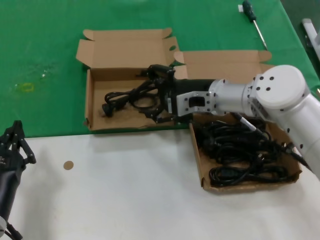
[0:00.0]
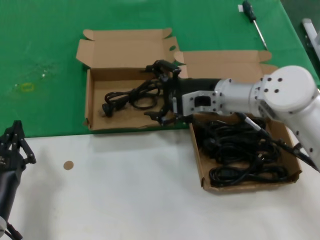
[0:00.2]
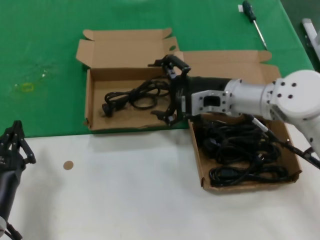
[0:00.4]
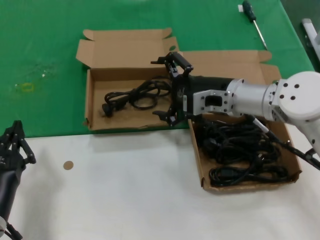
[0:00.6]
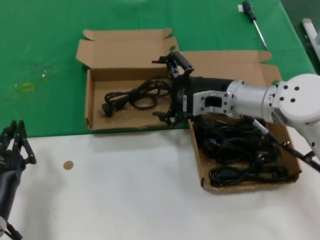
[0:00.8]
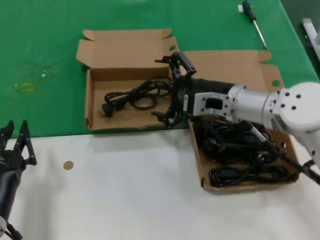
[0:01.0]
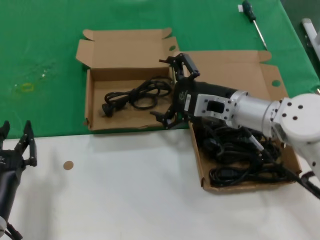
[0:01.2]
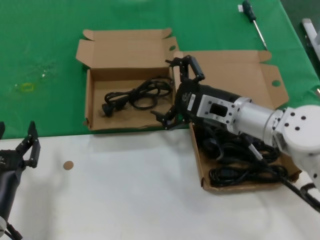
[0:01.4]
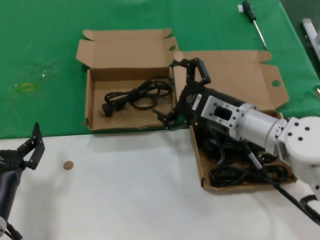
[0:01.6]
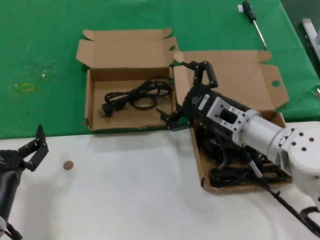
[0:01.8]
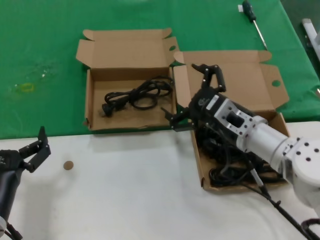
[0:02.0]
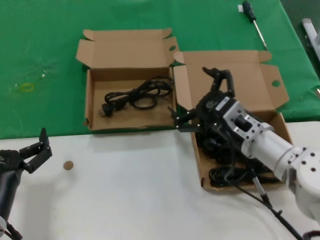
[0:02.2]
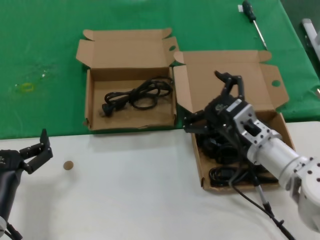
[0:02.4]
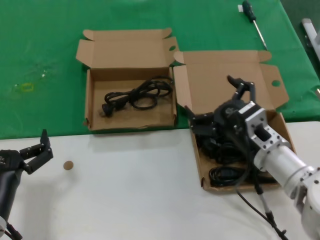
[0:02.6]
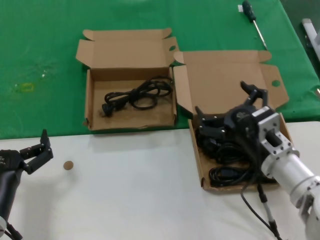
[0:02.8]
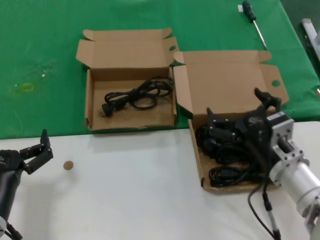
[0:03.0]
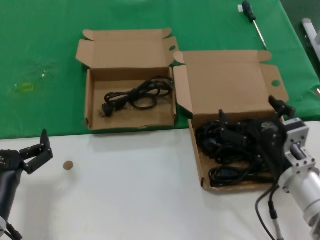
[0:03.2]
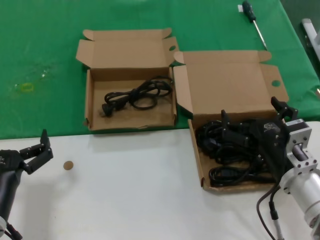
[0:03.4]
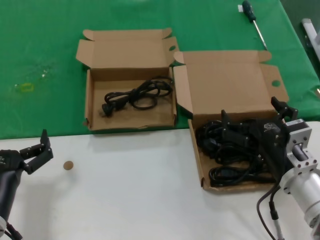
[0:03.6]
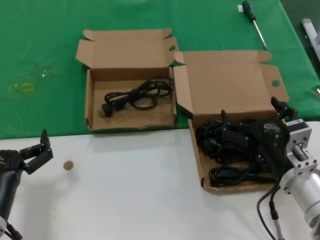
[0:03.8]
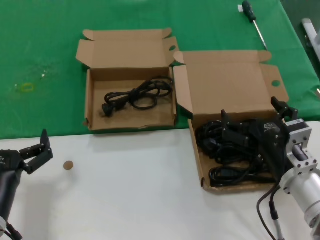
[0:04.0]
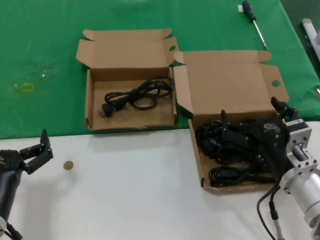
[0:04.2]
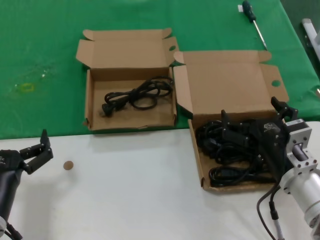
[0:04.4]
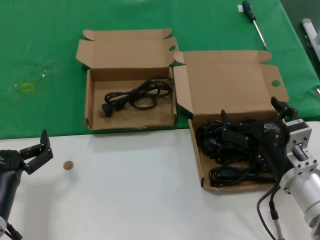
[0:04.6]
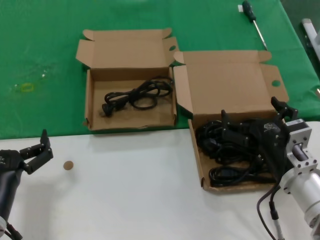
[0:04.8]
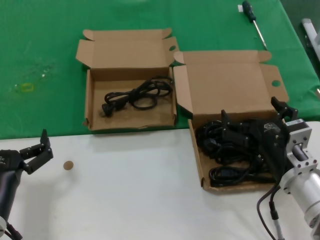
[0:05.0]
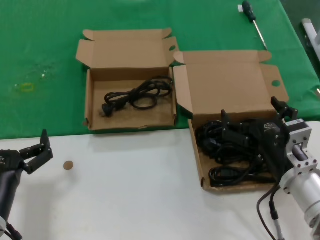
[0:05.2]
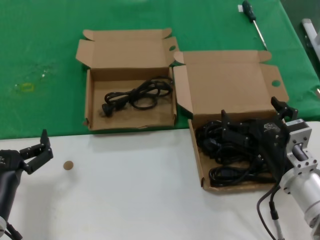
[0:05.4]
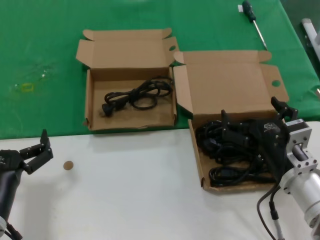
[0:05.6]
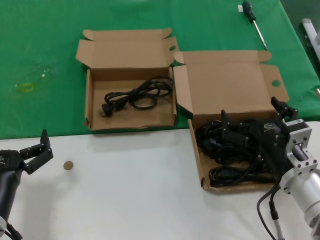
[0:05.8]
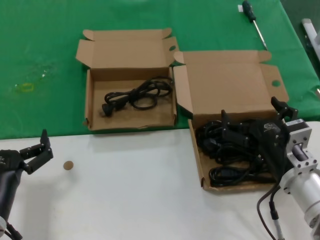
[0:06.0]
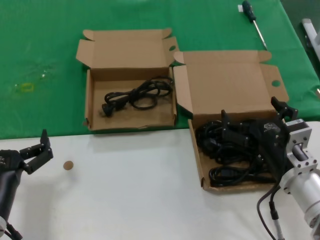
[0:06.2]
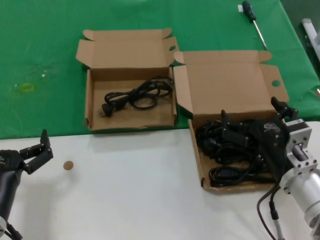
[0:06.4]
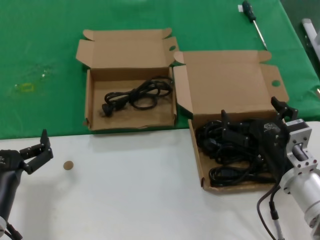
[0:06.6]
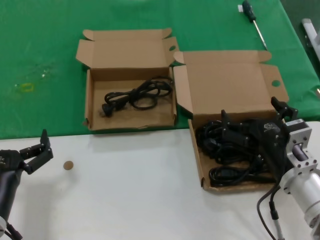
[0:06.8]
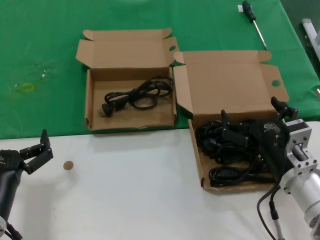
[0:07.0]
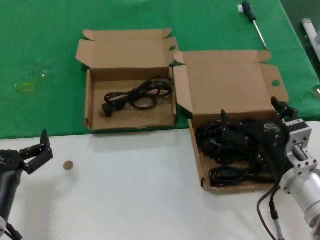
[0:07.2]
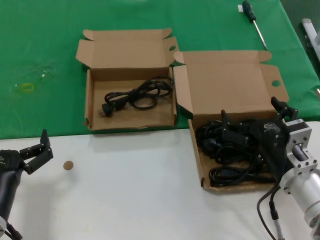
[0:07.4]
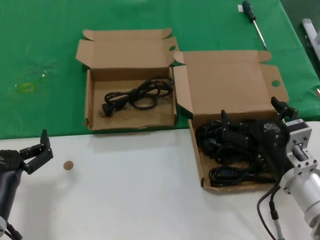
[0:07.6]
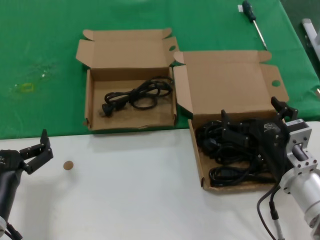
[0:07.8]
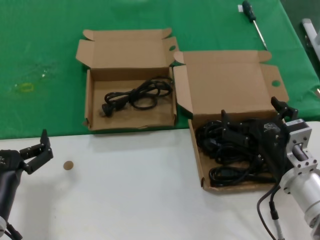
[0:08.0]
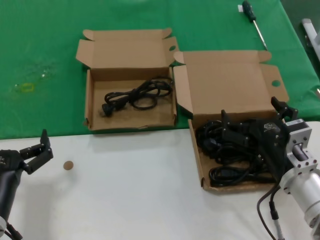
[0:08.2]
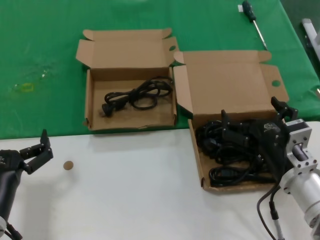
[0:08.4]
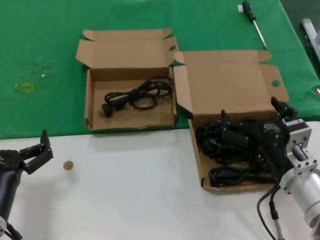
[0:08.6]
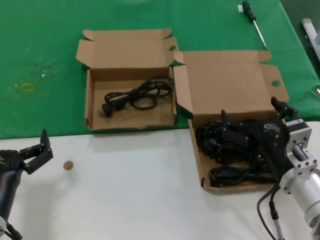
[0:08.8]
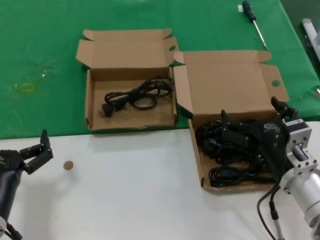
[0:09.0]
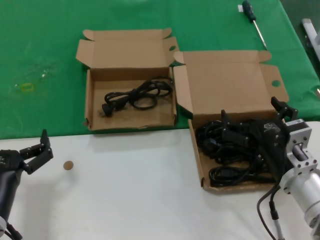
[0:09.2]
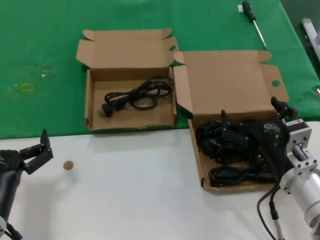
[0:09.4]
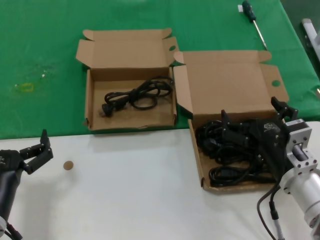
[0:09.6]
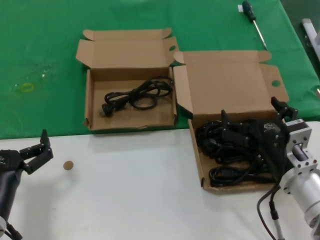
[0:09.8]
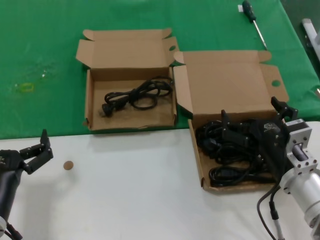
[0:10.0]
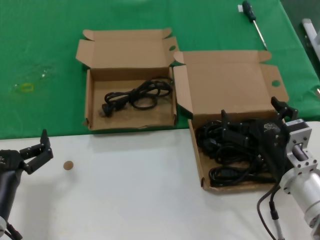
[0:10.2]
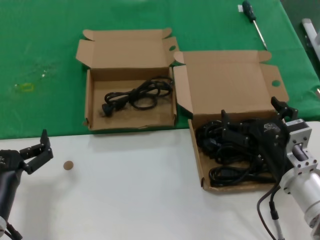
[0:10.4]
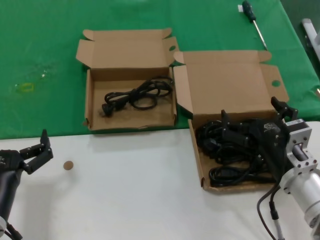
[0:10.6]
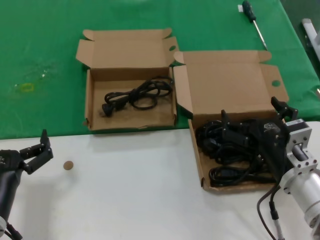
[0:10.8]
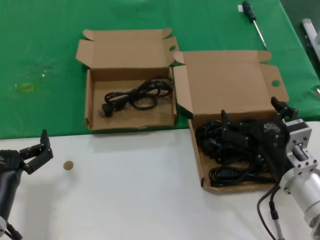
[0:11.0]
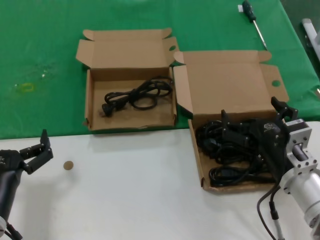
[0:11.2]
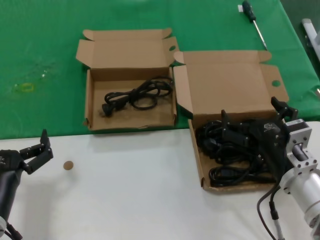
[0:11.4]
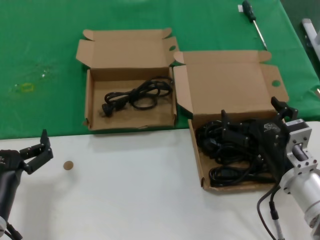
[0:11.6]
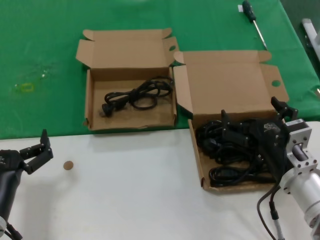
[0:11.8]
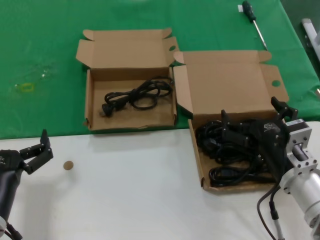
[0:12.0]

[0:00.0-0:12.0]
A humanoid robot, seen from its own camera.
Task of the whole recording: take the parts from the box containing them and put them into an empty box.
0:00.0 to 0:01.6: The right hand travels backward by approximately 5 cm.
0:01.6 to 0:03.0: The right hand heads backward and downward, covering some 10 cm.
0:03.0 to 0:04.4: The hands move only a little.
0:04.4 to 0:12.0: Both hands stay about where they are.

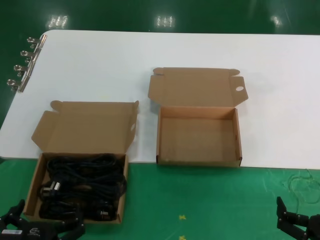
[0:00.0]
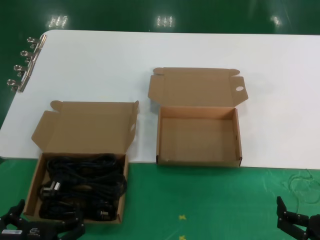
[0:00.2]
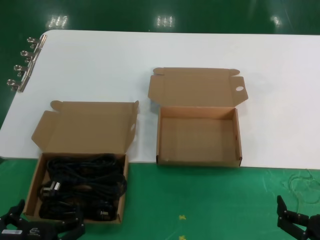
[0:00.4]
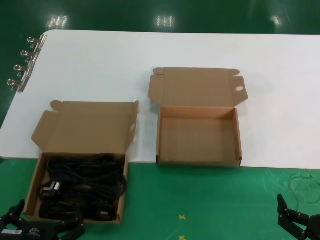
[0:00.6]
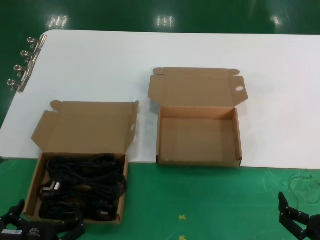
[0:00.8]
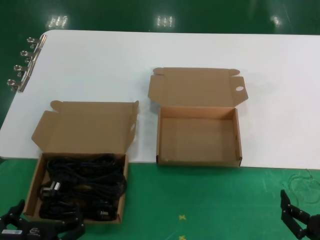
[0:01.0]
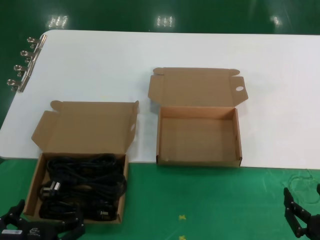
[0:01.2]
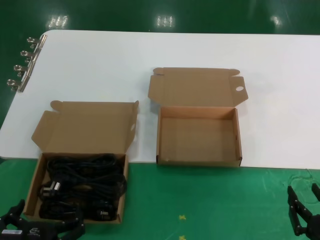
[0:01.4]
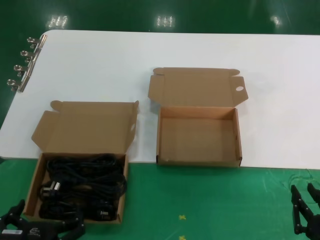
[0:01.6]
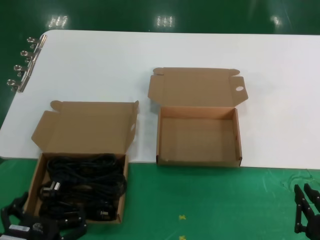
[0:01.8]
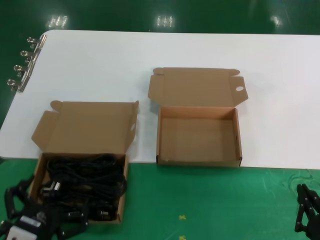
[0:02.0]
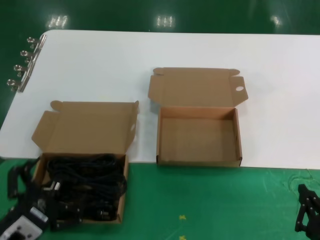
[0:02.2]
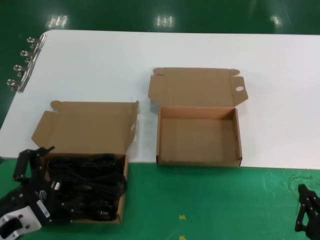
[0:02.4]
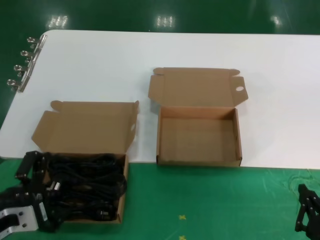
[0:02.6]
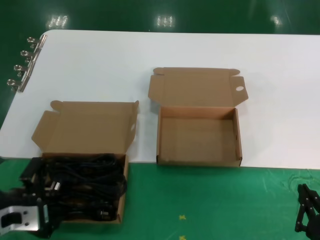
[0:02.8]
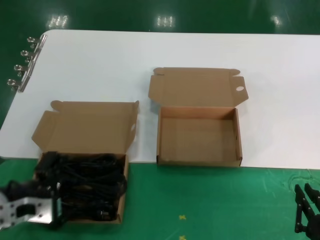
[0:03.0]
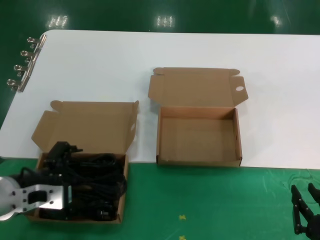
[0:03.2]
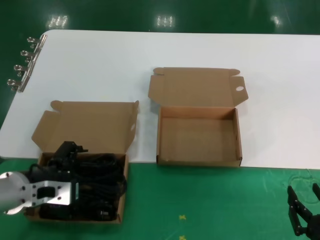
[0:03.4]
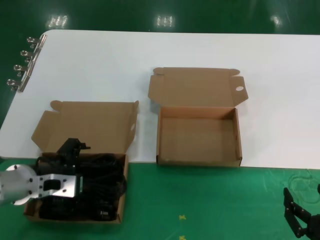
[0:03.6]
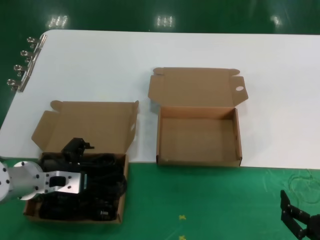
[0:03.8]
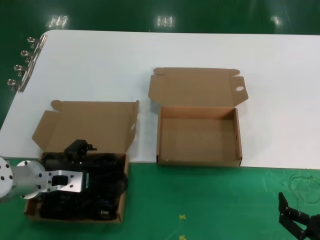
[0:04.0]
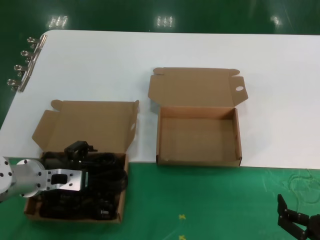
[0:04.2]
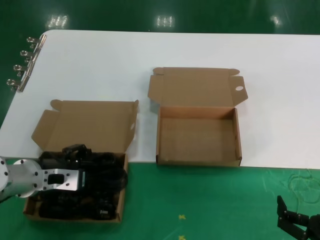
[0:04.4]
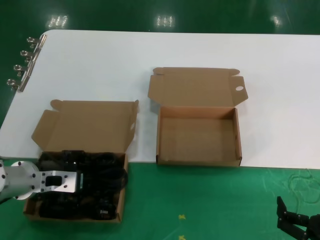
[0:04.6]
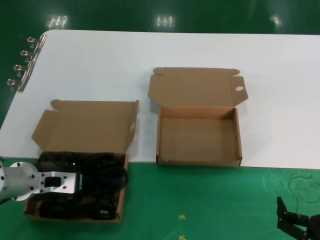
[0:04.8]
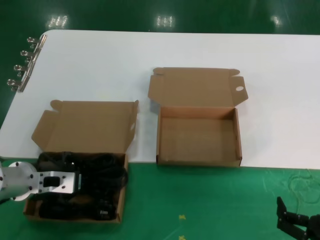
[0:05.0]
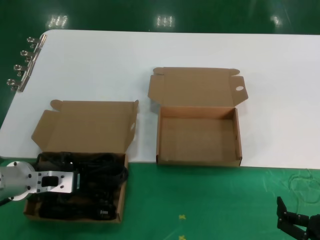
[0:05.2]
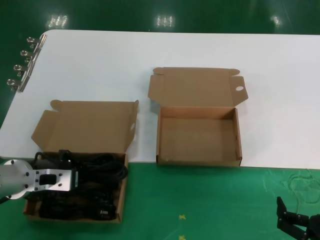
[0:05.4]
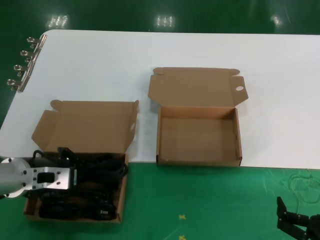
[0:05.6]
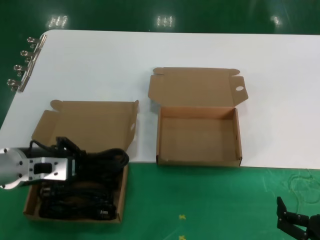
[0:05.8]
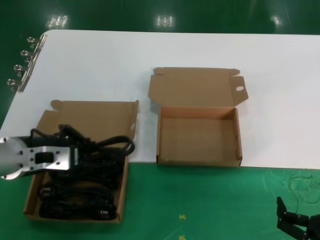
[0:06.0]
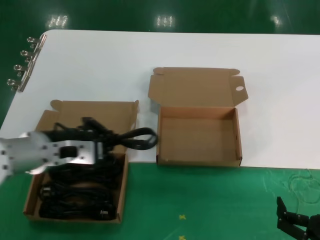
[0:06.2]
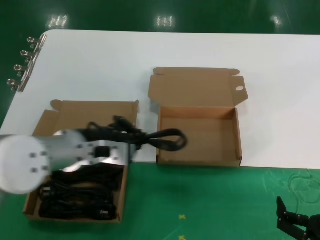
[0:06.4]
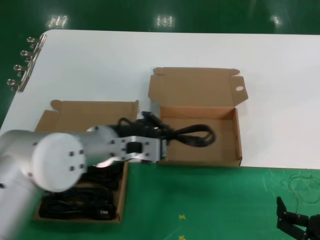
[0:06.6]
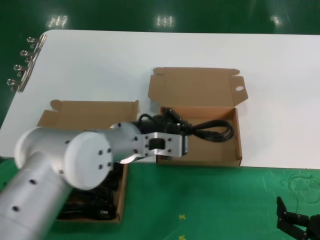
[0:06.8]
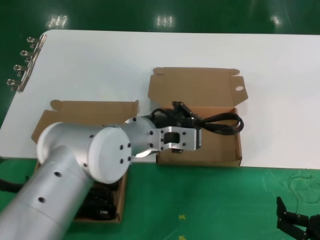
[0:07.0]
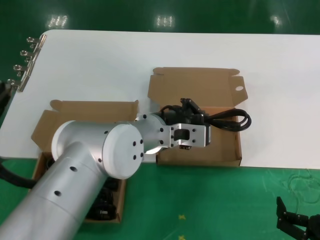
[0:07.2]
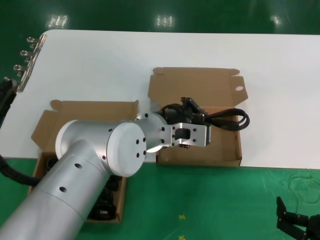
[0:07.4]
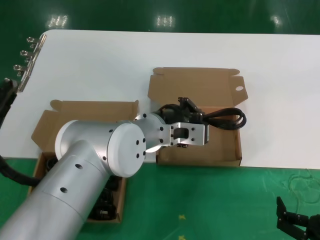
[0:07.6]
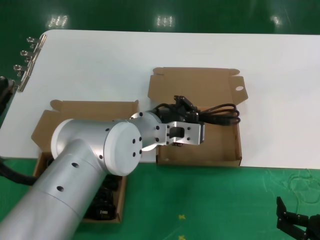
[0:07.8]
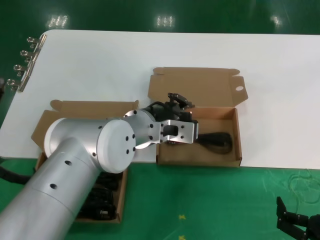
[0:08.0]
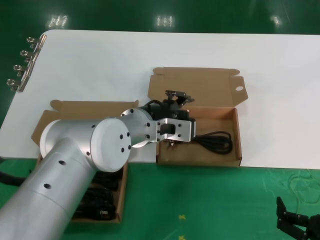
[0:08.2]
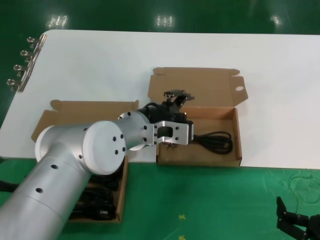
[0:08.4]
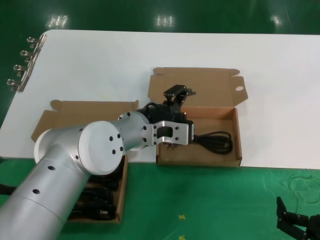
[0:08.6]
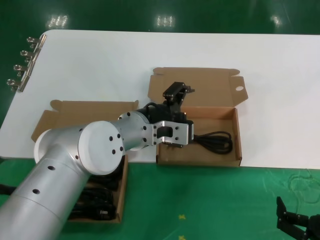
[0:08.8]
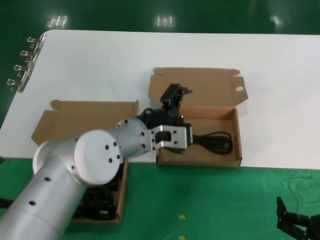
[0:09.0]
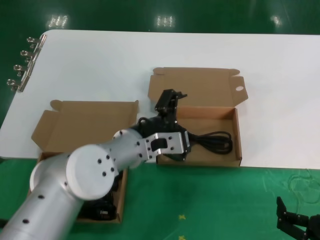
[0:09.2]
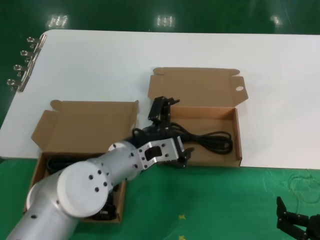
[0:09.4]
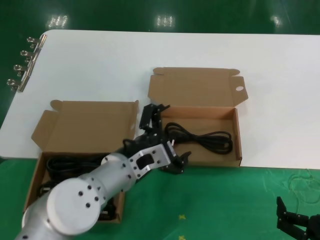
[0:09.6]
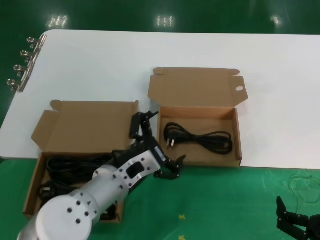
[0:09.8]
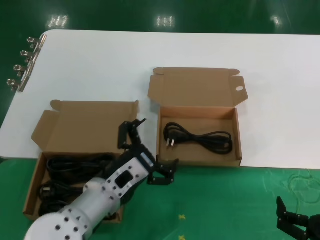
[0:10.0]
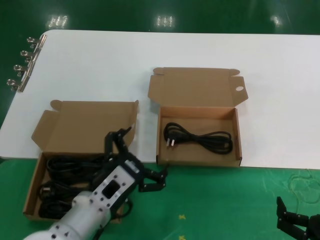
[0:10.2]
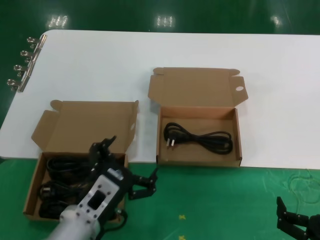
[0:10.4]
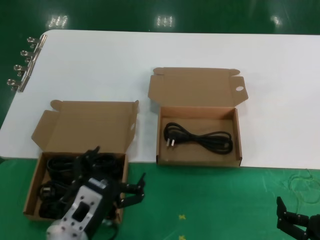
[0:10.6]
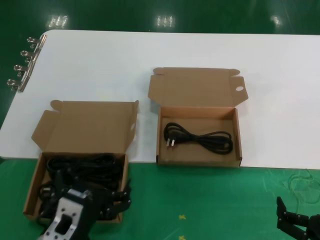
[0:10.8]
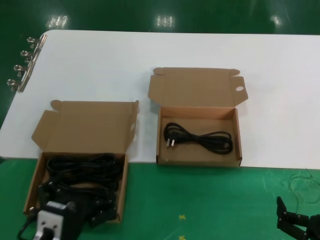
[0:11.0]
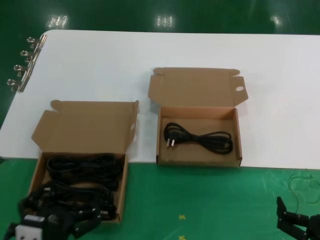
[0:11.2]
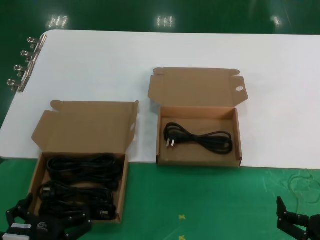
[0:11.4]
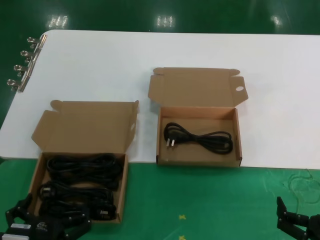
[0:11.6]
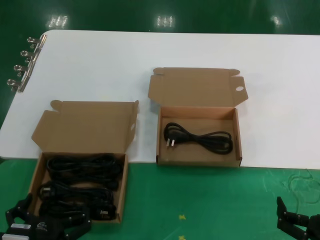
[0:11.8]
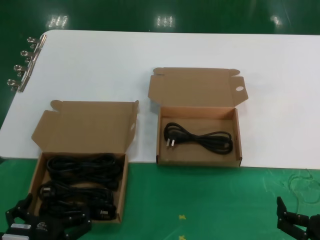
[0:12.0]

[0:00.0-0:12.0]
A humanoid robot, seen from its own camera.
Task of the whole recording: take the parts from the box containing them and put them into an empty box.
Step, 0:00.0 to 0:04.8: Grasp the data cable.
Step, 0:05.0 to 0:08.4: Place the data cable in the another box.
0:00.0 to 0:01.6: Both hands stay about where they are.
0:01.6 to 0:03.0: The left hand shifts roughly 20 cm upward, forward and to the left.
0:03.0 to 0:04.4: The left hand shifts some 10 cm forward.
0:04.4 to 0:06.0: The left hand is displaced upward by about 5 cm.
0:06.0 to 0:07.6: The left hand heads to the right, covering roughly 25 cm.
0:07.6 to 0:09.0: The hands move only a little.
0:09.0 to 0:10.4: The left hand shifts some 20 cm downward, backward and to the left.
0:10.4 to 0:12.0: The left hand shifts approximately 15 cm backward, to the left and downward.
